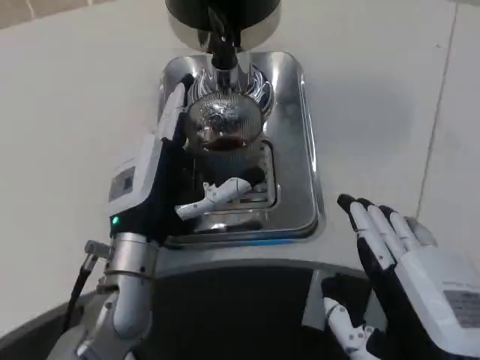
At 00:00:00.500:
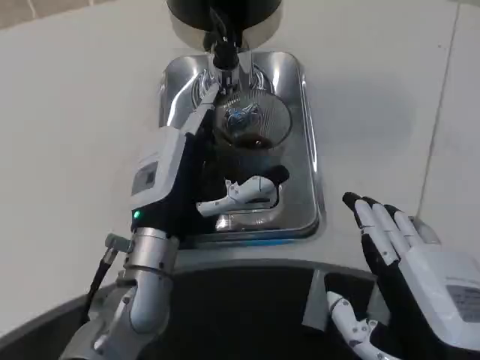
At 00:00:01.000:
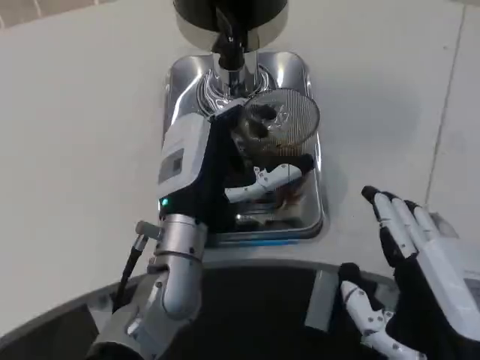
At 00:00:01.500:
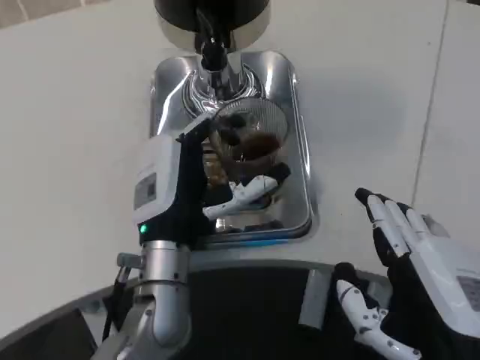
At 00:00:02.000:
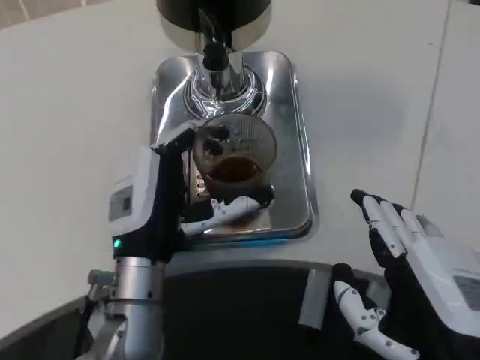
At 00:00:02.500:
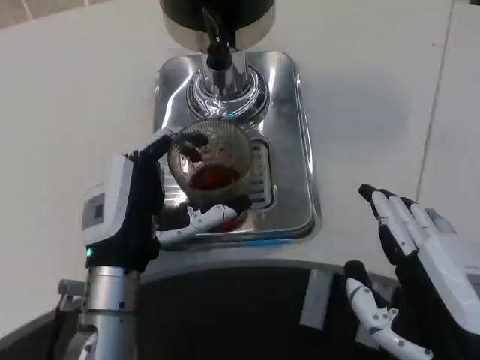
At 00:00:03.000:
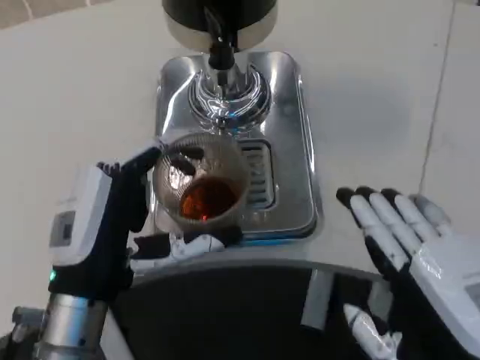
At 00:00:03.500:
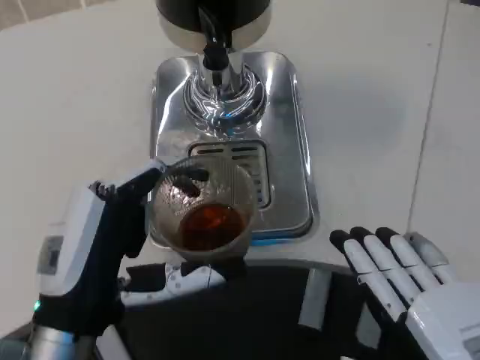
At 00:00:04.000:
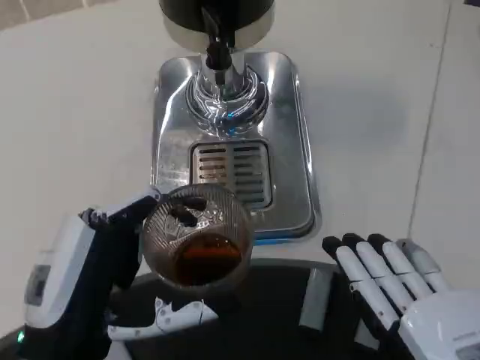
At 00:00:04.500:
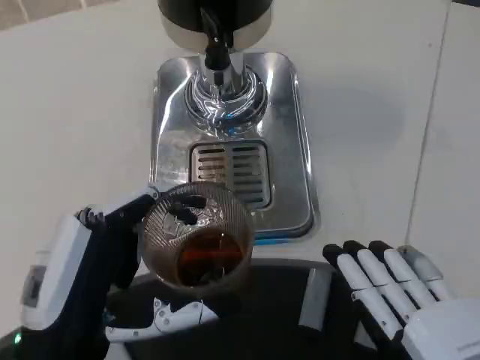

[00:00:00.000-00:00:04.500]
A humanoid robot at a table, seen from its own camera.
Task of the whole recording: Grasp the cup under the faucet to collect the drink, then remove the cup.
00:00:02.000 to 00:00:04.500: The right hand shifts some 5 cm backward; the left hand shifts approximately 15 cm backward and to the left.

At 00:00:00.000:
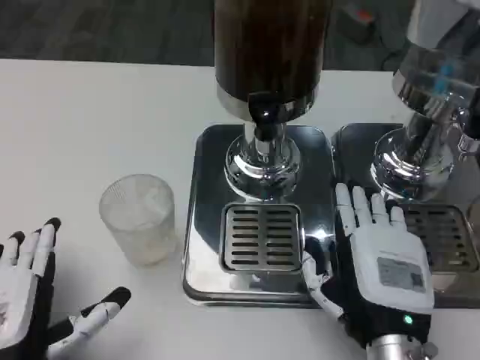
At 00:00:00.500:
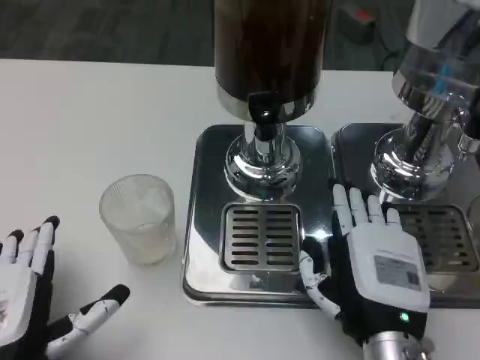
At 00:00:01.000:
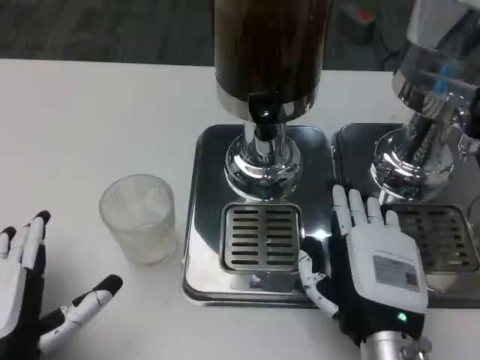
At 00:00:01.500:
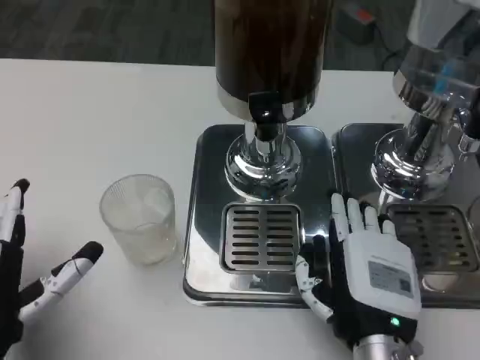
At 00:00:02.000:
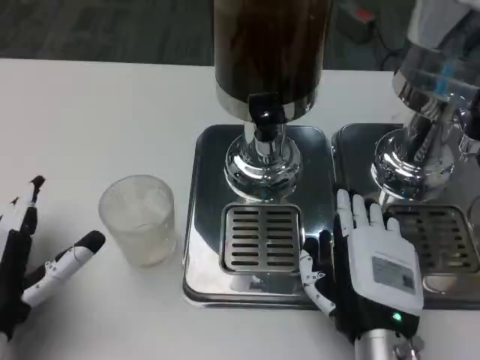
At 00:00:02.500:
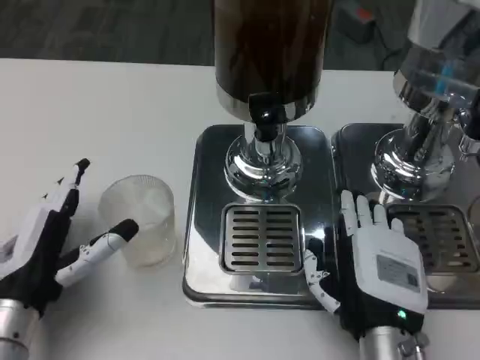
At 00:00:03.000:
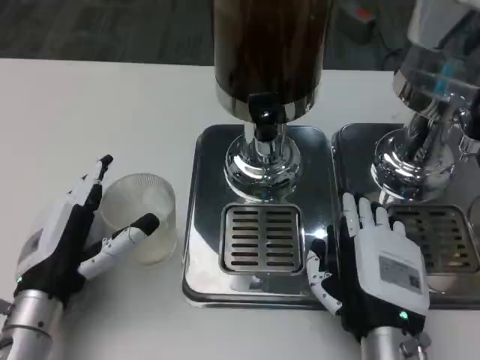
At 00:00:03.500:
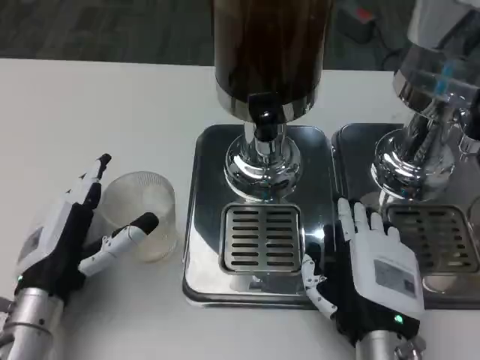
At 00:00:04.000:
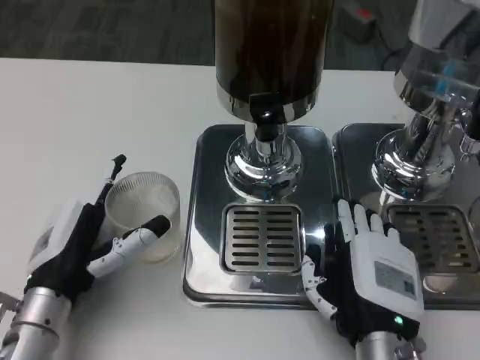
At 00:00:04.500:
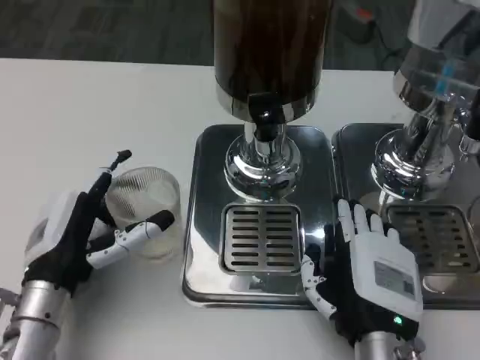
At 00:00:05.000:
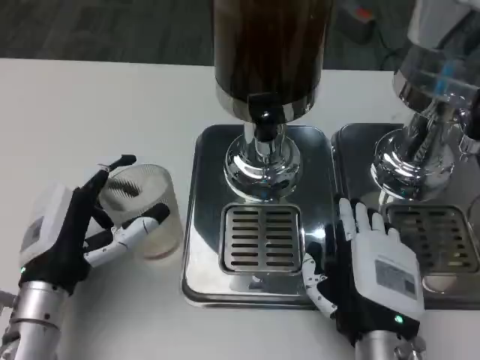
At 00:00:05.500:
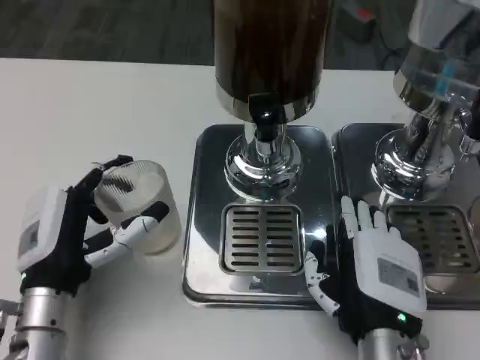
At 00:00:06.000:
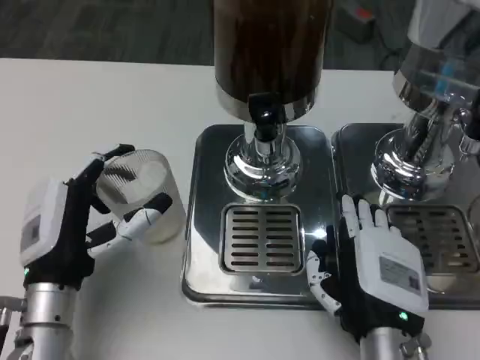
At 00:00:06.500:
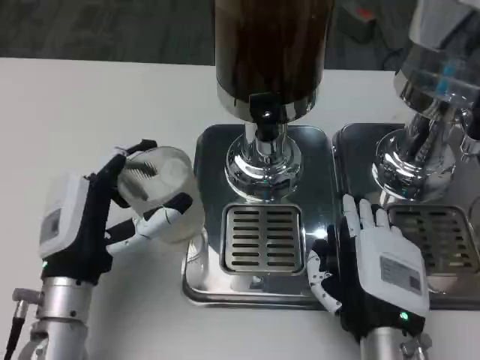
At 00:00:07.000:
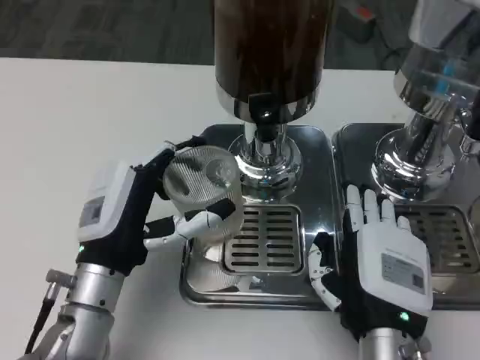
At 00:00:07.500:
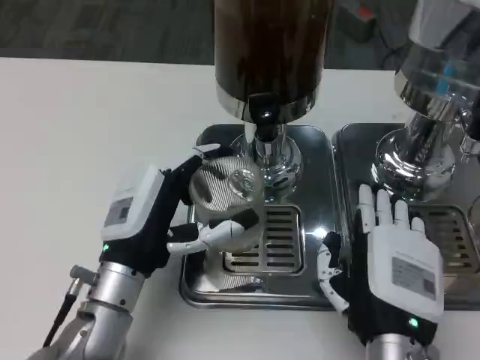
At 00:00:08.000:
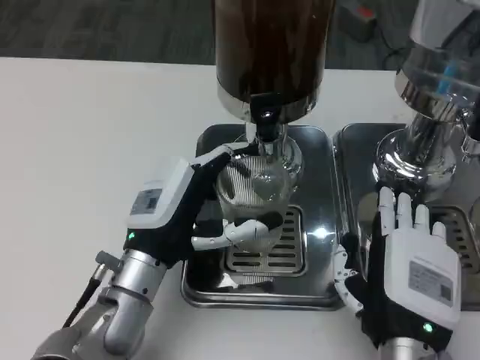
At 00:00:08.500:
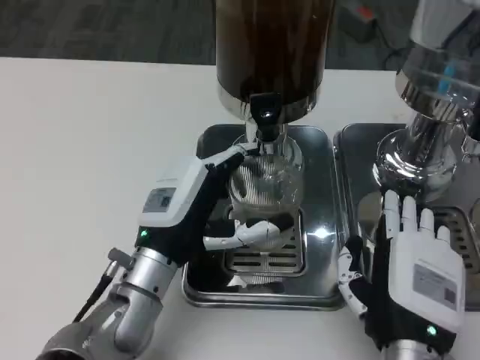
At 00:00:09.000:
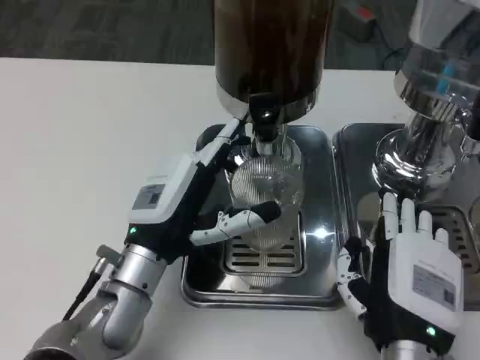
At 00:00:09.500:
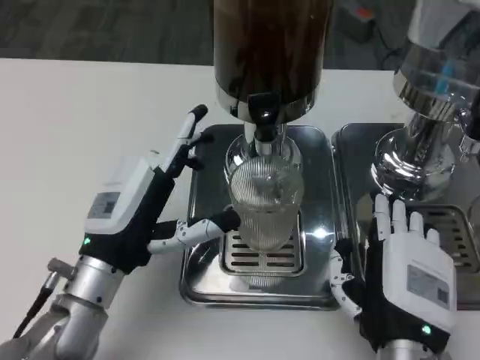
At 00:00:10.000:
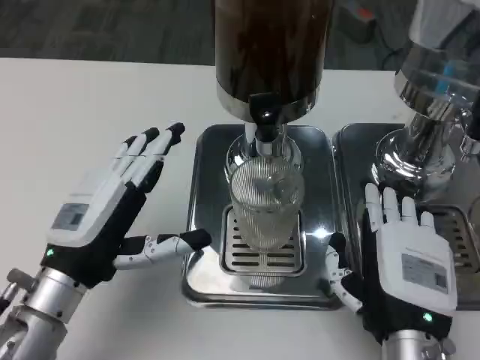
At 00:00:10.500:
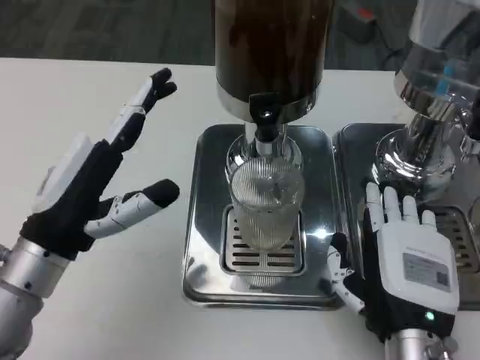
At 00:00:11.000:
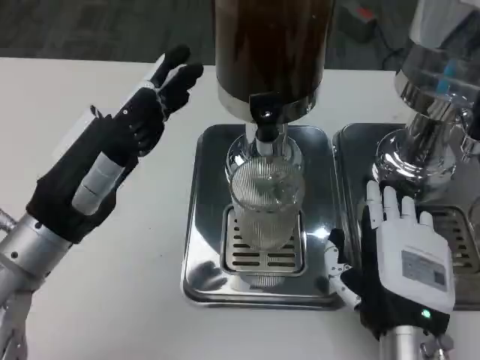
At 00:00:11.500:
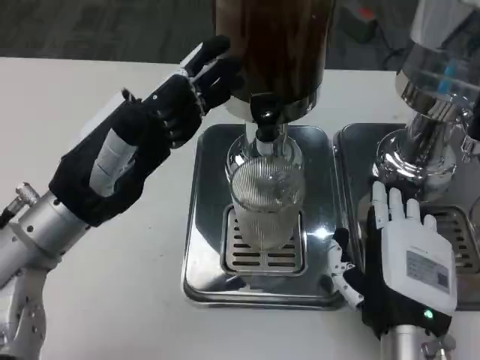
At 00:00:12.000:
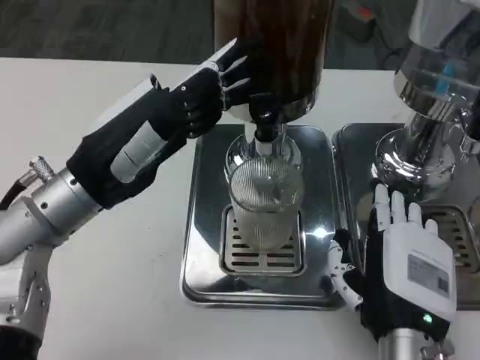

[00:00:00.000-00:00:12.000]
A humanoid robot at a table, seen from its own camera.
Task of the whole recording: Grasp the cup under the faucet to collect the drink, then remove the cup.
00:00:00.000 to 00:00:02.000: The left hand goes approximately 5 cm forward.
00:00:02.000 to 00:00:04.000: The left hand changes place by about 5 cm.
00:00:04.000 to 00:00:06.000: The hands make only small movements.
00:00:06.000 to 00:00:08.000: The left hand heads to the right, covering approximately 5 cm.
00:00:08.000 to 00:00:10.000: The left hand shifts roughly 10 cm to the left.
00:00:10.000 to 00:00:12.000: The left hand heads upward and forward, covering some 10 cm.

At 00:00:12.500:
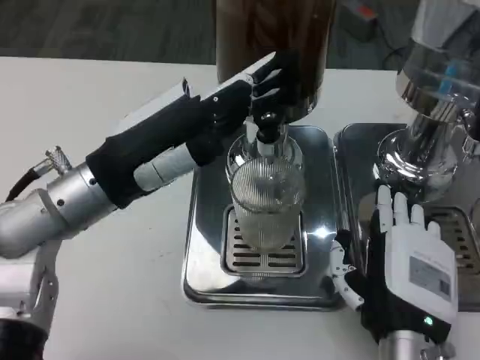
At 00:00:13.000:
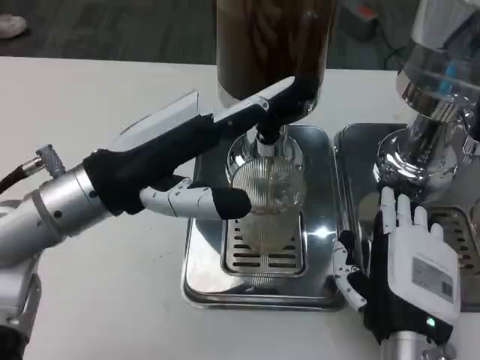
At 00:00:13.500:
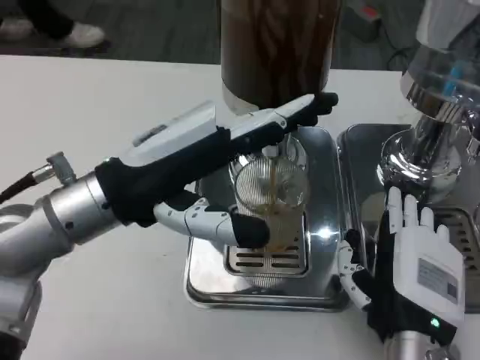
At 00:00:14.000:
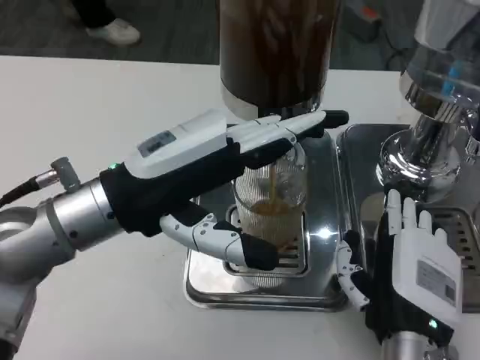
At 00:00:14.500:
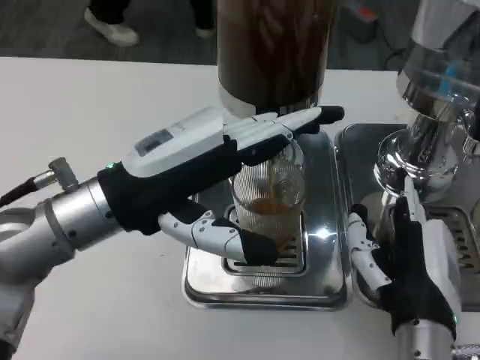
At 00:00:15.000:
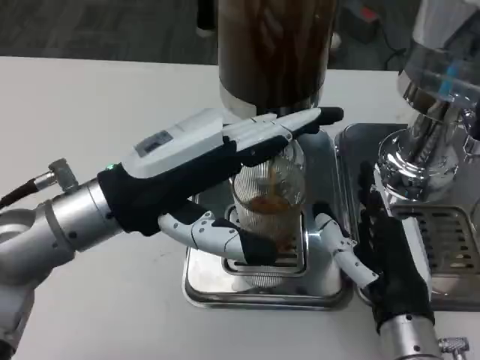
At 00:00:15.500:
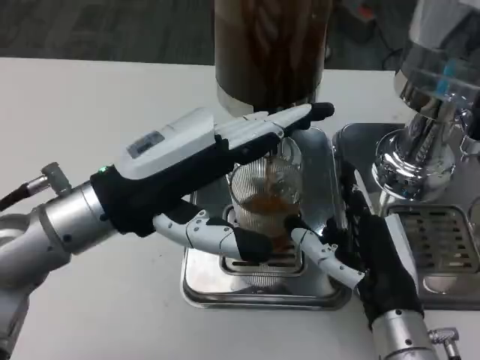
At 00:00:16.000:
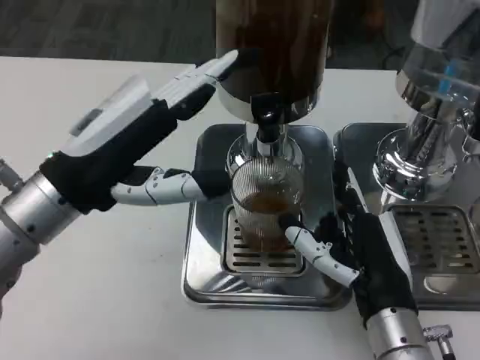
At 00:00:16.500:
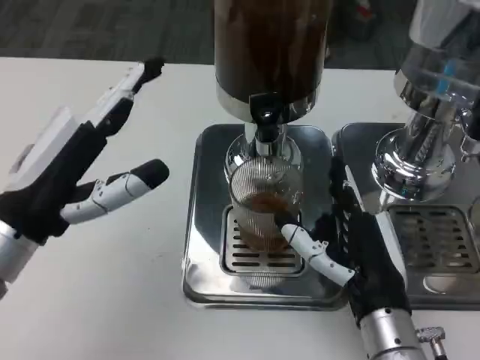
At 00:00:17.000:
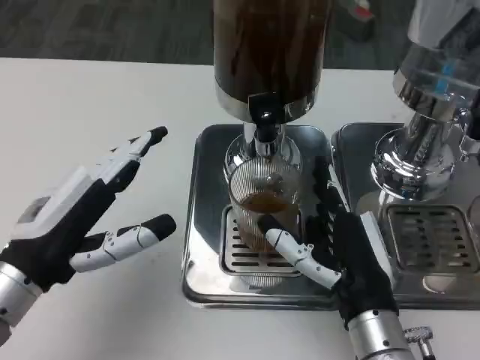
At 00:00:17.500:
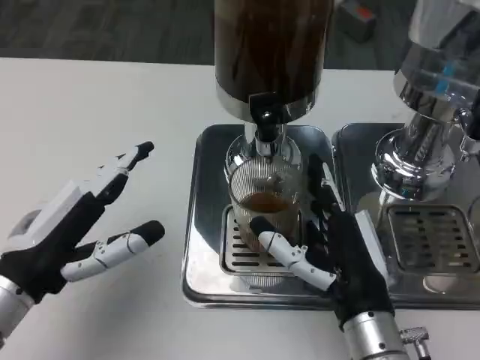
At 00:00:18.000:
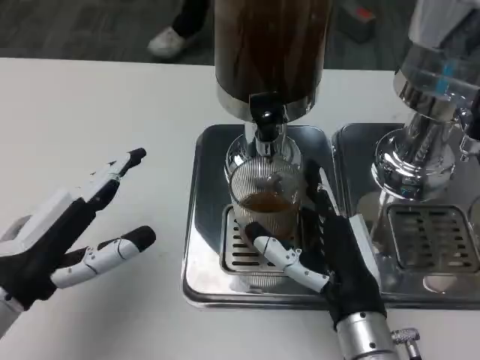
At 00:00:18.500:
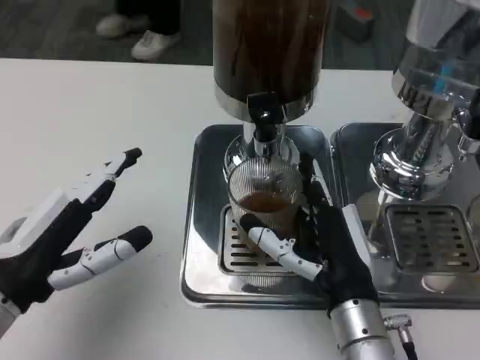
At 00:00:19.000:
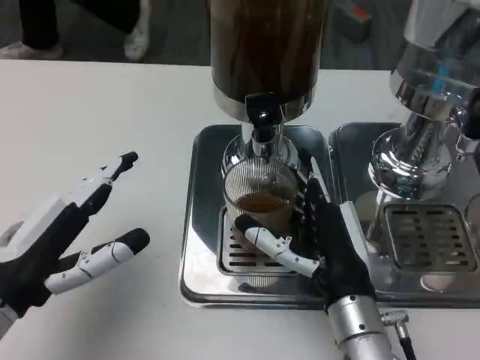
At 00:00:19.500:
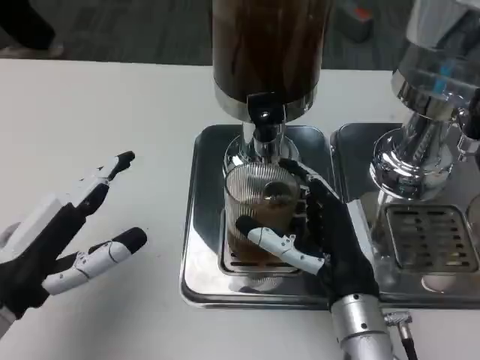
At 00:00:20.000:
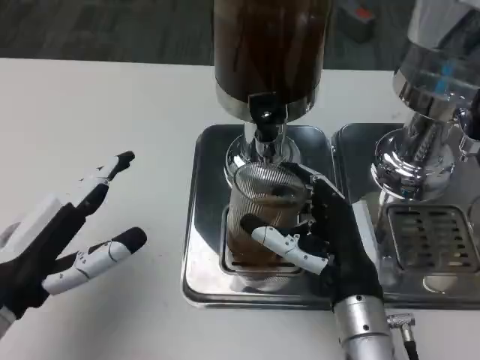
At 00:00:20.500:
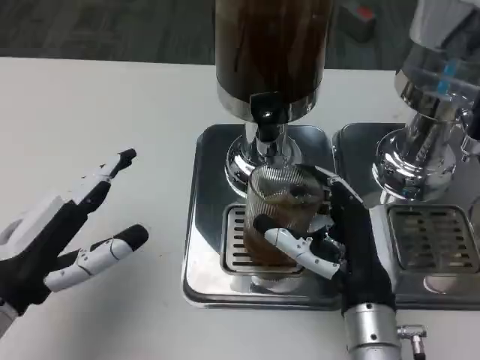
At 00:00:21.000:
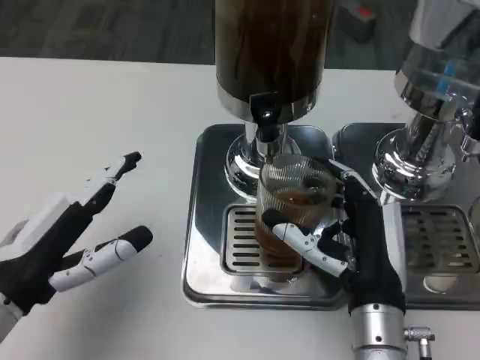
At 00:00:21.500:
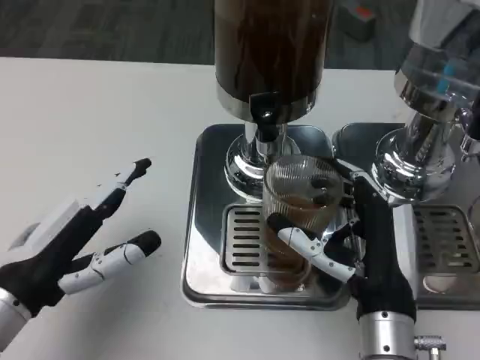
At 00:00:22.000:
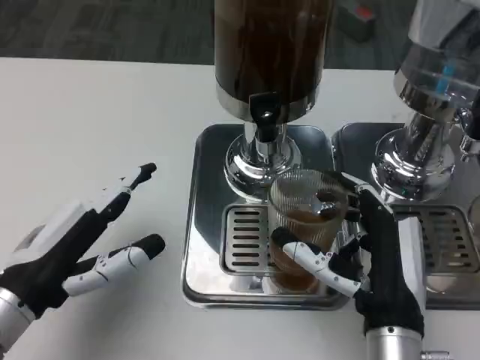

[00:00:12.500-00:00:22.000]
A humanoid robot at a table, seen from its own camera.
Task of the whole recording: Grasp the cup under the faucet to collect the drink, then remove the cup.
00:00:14.500 to 00:00:16.500: The left hand travels to the left by about 5 cm.
00:00:16.500 to 00:00:18.000: The left hand changes place by approximately 5 cm.
00:00:18.000 to 00:00:20.000: The hands stay close to where they were, moving slightly.
